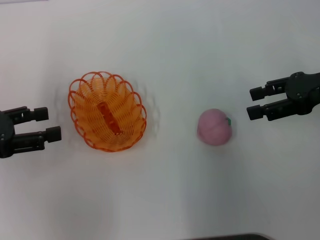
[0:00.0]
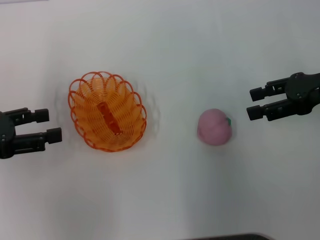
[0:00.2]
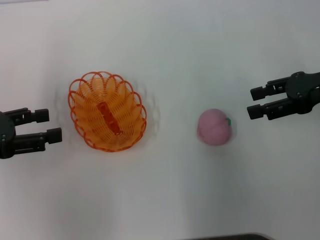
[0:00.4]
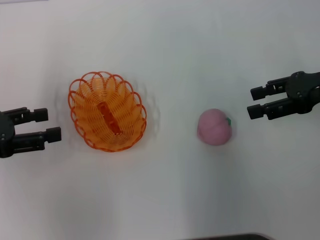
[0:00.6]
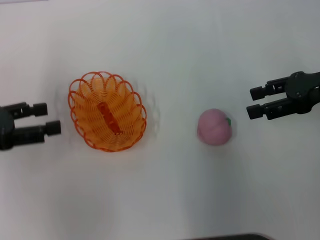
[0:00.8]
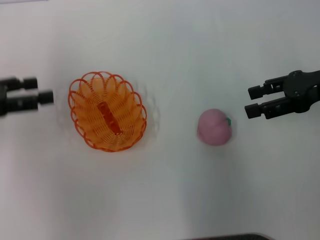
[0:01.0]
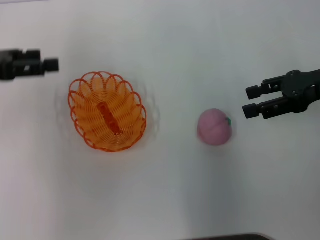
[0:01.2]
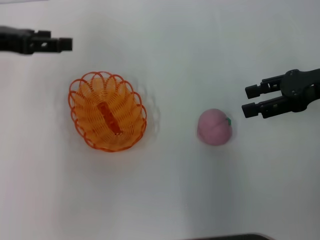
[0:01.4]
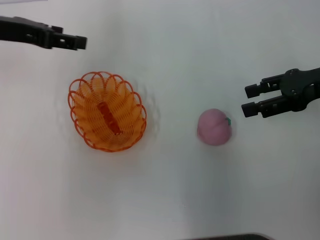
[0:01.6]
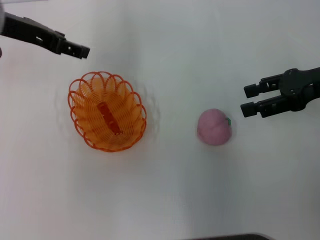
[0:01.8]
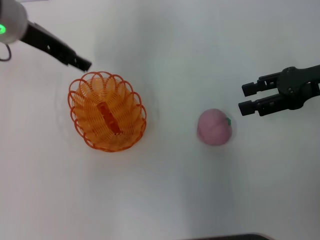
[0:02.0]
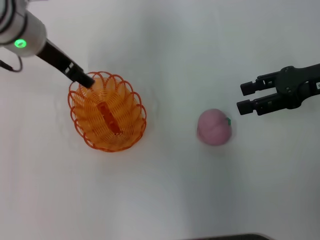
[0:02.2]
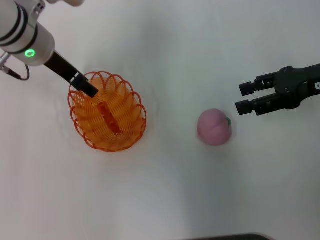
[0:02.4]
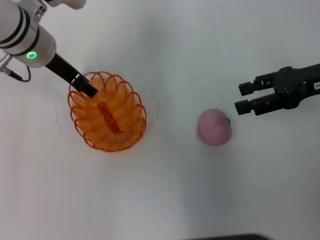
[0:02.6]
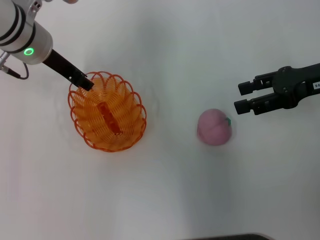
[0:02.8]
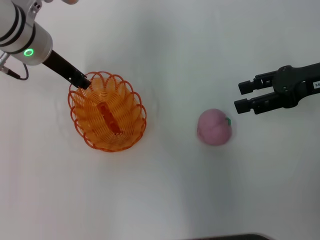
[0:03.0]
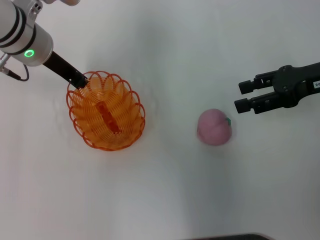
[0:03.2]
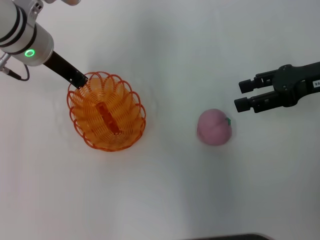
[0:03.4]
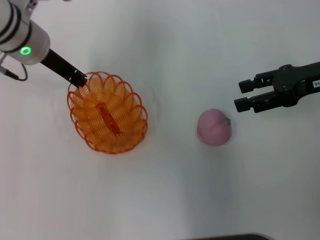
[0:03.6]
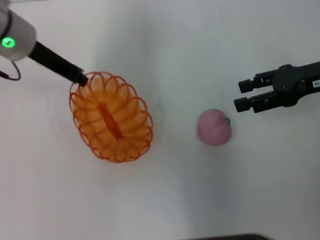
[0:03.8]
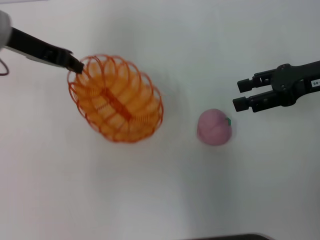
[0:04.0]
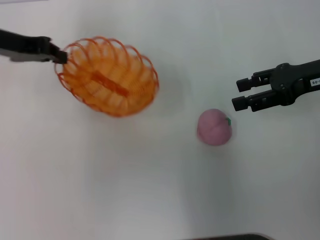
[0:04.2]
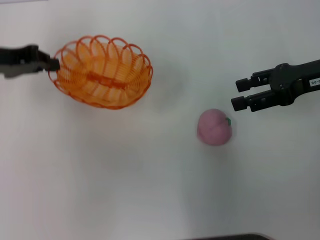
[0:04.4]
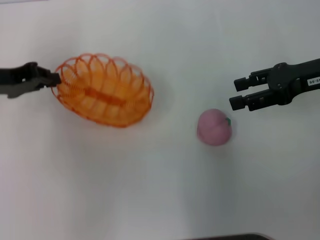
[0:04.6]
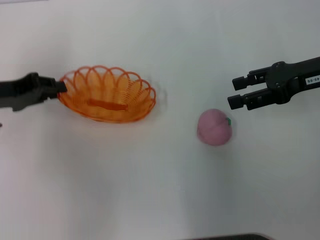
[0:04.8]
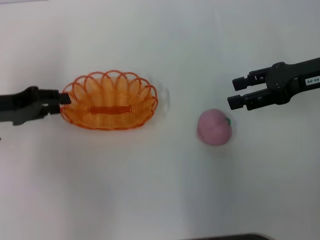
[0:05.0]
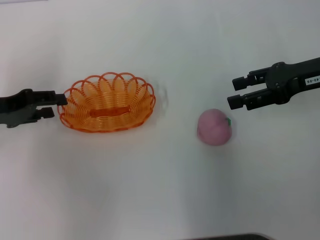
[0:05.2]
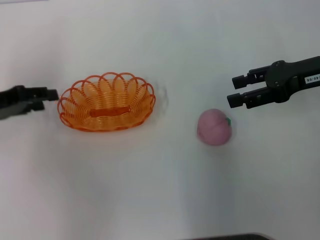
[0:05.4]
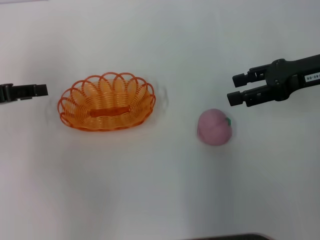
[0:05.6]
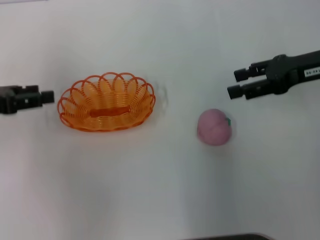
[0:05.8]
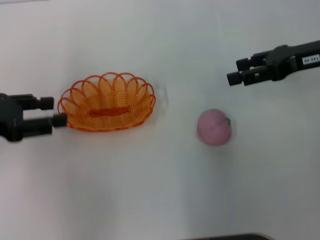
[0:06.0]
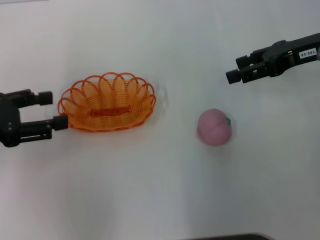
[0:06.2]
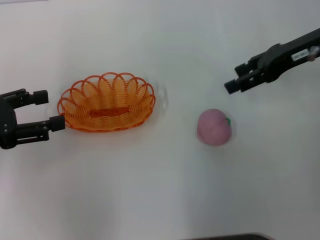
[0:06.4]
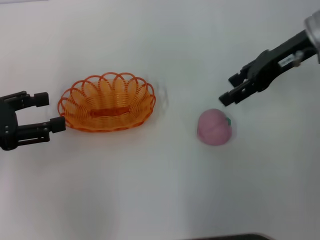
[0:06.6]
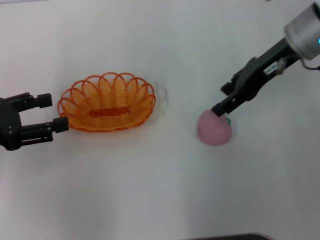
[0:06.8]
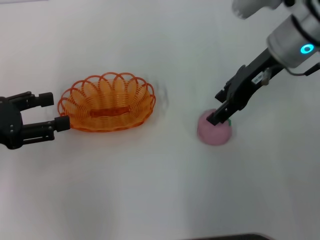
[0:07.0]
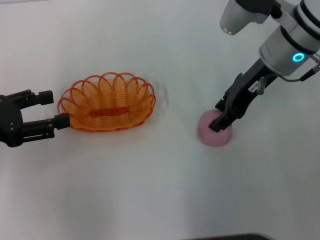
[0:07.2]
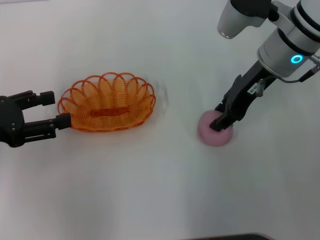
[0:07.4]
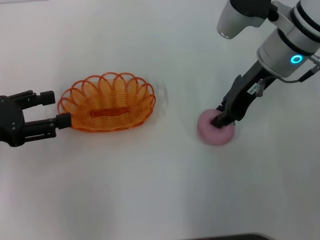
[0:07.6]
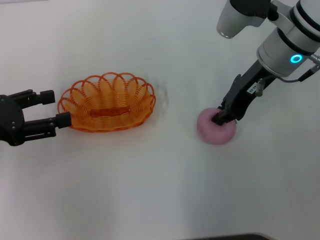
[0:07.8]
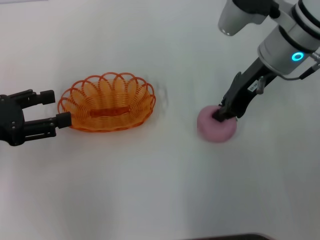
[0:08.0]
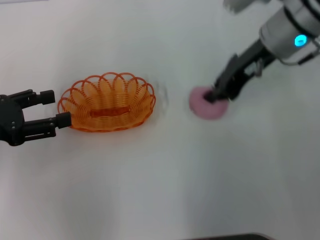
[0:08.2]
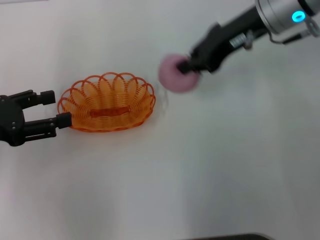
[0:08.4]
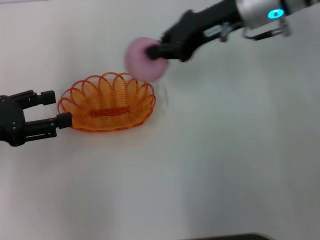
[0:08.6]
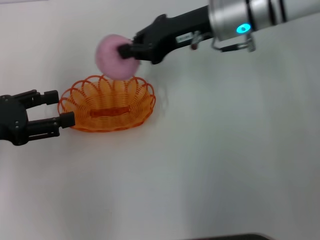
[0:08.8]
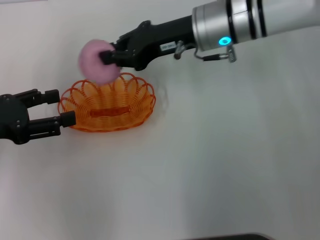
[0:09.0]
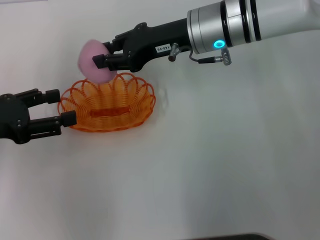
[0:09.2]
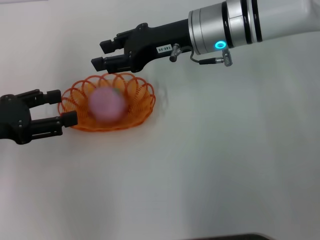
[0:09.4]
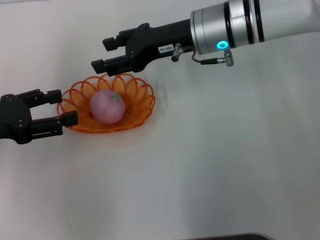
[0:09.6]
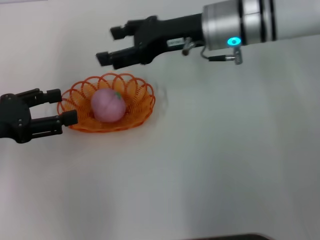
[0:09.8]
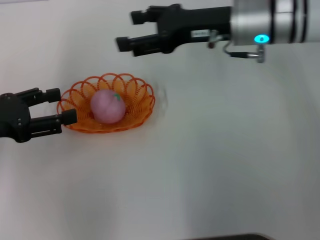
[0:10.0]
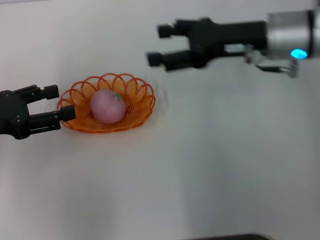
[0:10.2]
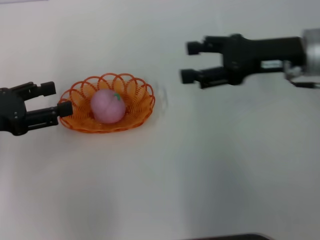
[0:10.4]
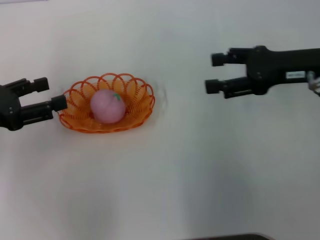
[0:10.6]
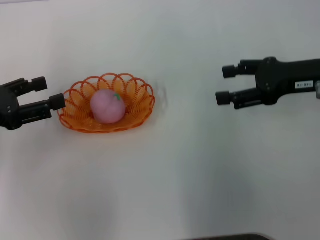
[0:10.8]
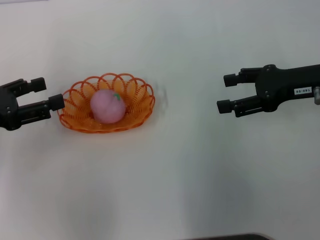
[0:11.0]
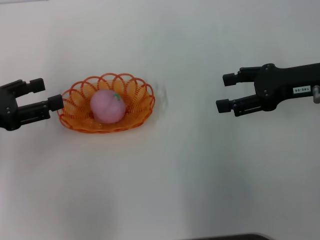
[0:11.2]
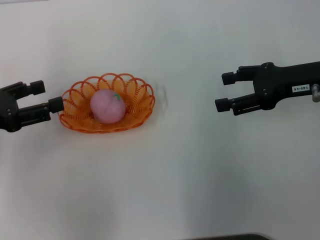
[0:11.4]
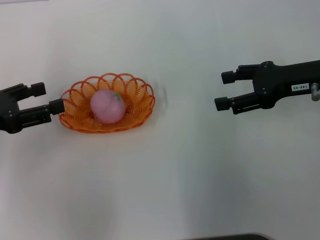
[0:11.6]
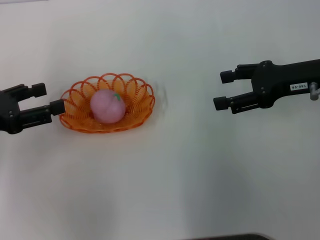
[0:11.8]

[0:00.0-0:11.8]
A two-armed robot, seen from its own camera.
Step, 0:00.0 to 0:04.2: Pick up the basket with the left gripper.
Step, 0:04.4 to 0:06.2: Place the basket in the center of view with the left gripper.
Step, 0:06.4 to 0:08.2: Pick up the peach with the right gripper.
Step, 0:08.4 to 0:10.4: Place the peach into the basket with the right gripper.
0:00.0 to 0:01.4: The left gripper shifts about 15 cm forward and upward.
0:01.4 to 0:03.0: The left gripper shifts about 10 cm to the right, and closes.
0:03.0 to 0:04.4: The left gripper goes about 10 cm to the left, and closes its fingers.
0:04.4 to 0:06.0: The left gripper is displaced backward by about 10 cm, and opens its fingers.
0:06.0 to 0:07.4: The right gripper heads to the left, covering about 10 cm.
0:07.4 to 0:08.8: The right gripper changes place by roughly 5 cm, and closes up.
0:08.8 to 0:10.4: The right gripper travels to the right and backward by some 15 cm, and opens up.
0:10.4 to 0:11.8: There are only small adjustments of the grippers.

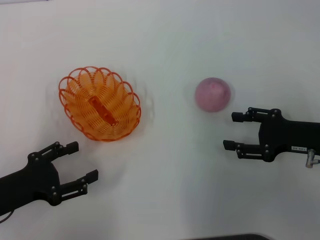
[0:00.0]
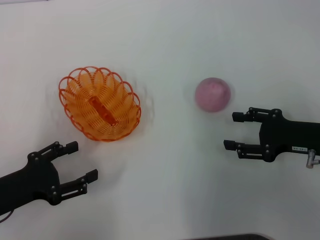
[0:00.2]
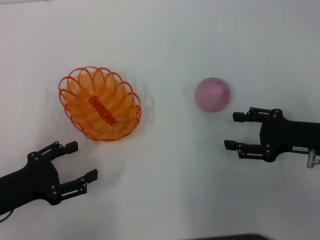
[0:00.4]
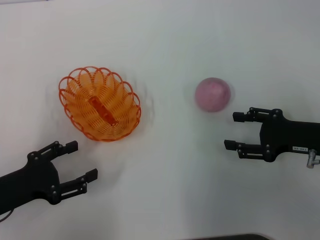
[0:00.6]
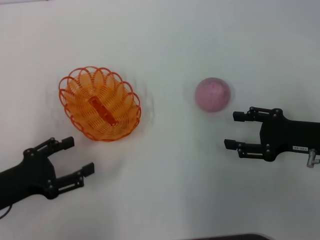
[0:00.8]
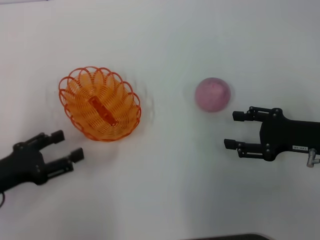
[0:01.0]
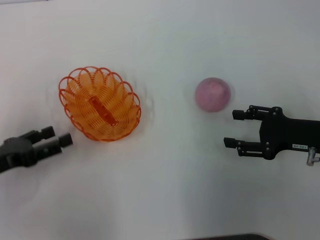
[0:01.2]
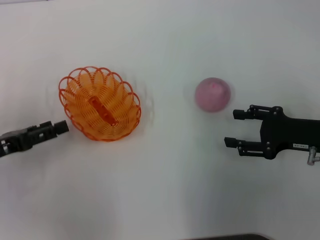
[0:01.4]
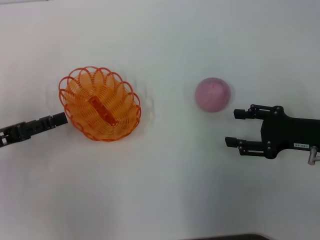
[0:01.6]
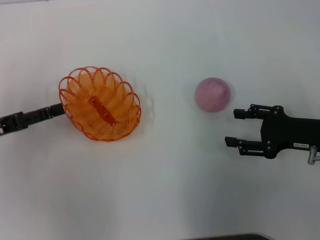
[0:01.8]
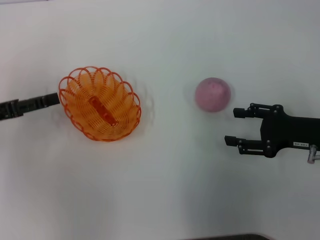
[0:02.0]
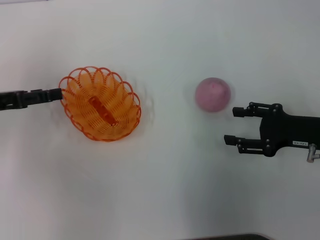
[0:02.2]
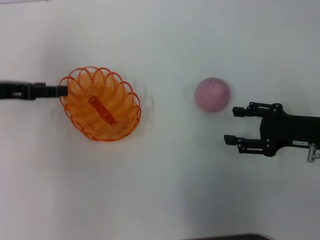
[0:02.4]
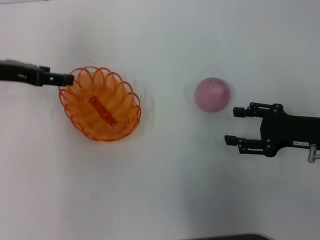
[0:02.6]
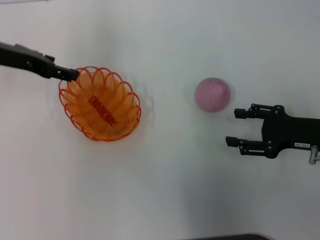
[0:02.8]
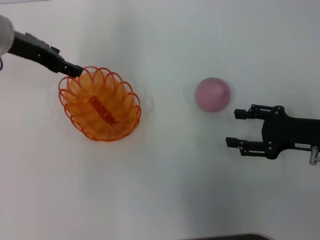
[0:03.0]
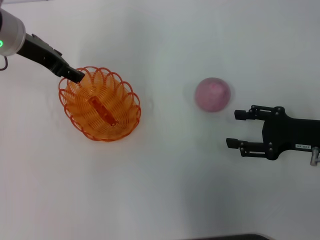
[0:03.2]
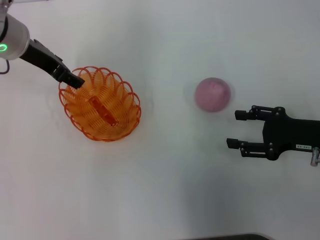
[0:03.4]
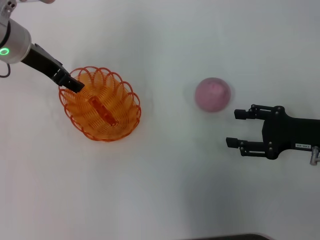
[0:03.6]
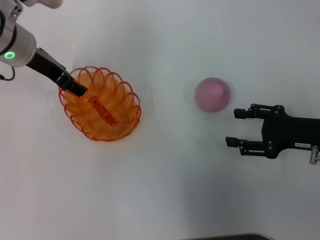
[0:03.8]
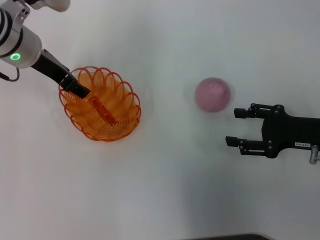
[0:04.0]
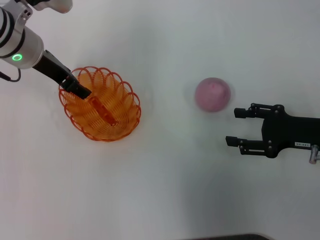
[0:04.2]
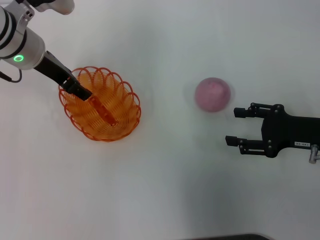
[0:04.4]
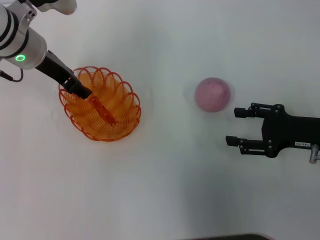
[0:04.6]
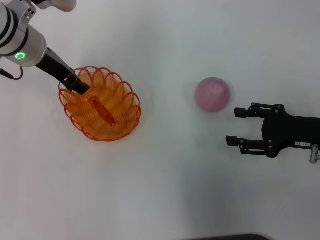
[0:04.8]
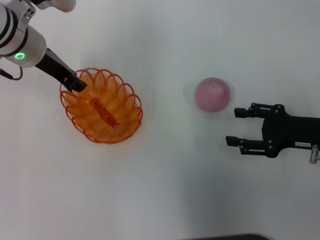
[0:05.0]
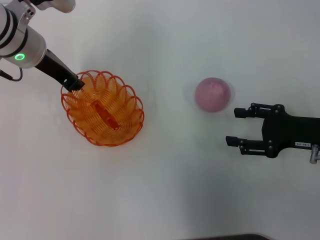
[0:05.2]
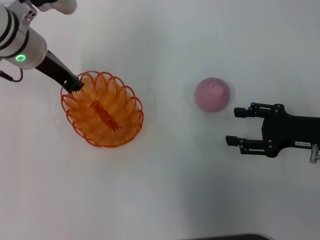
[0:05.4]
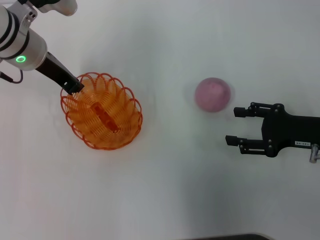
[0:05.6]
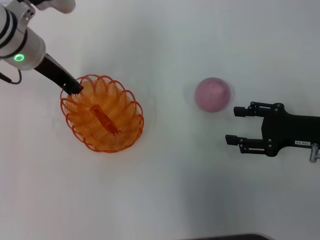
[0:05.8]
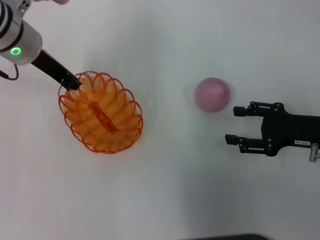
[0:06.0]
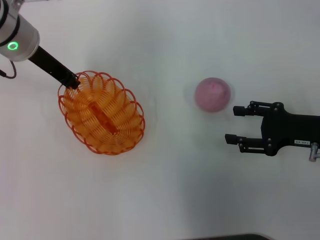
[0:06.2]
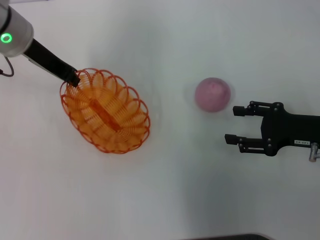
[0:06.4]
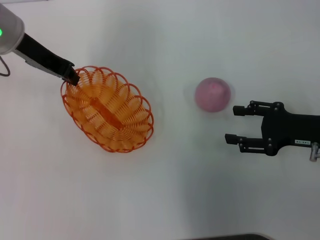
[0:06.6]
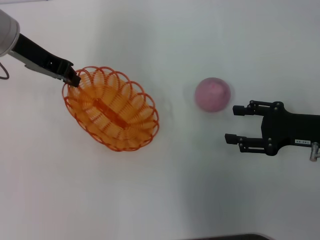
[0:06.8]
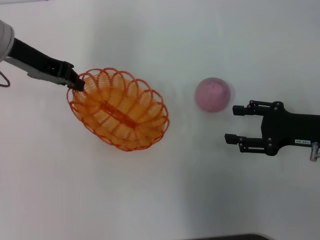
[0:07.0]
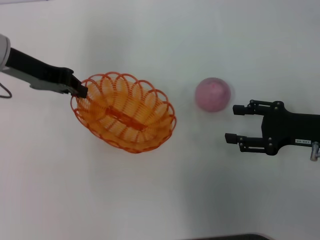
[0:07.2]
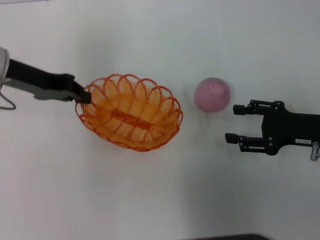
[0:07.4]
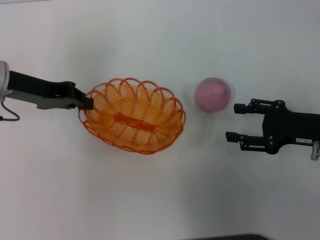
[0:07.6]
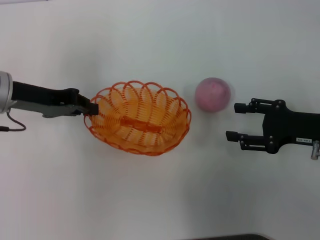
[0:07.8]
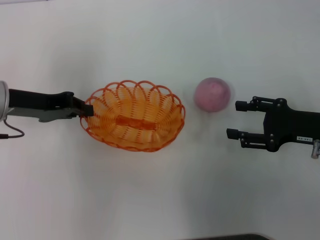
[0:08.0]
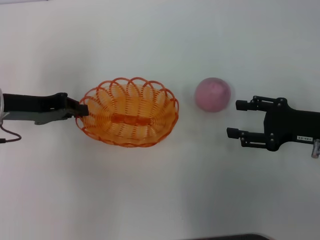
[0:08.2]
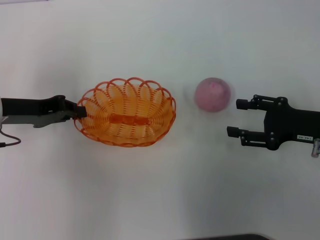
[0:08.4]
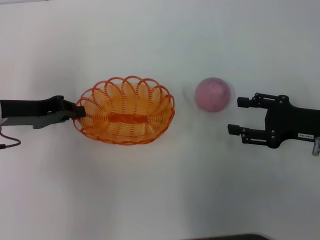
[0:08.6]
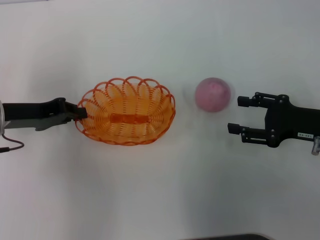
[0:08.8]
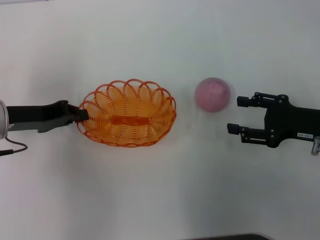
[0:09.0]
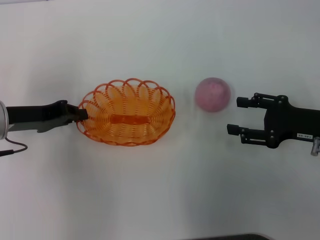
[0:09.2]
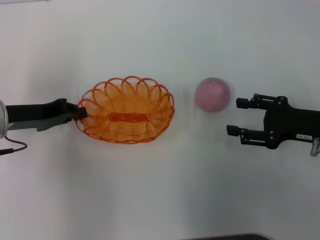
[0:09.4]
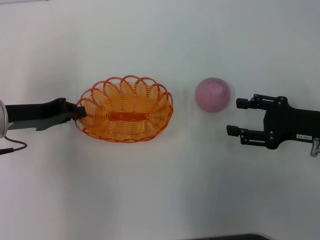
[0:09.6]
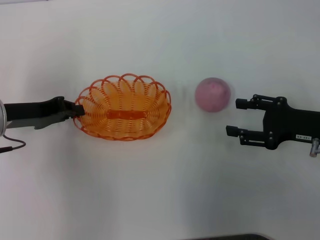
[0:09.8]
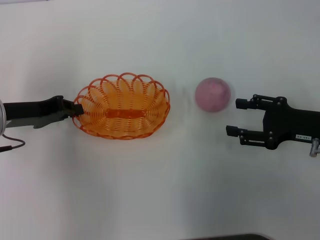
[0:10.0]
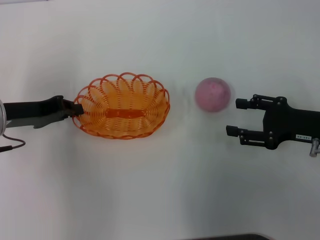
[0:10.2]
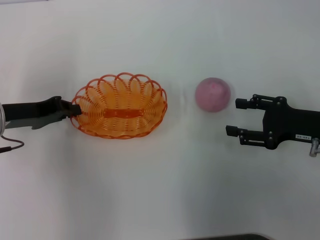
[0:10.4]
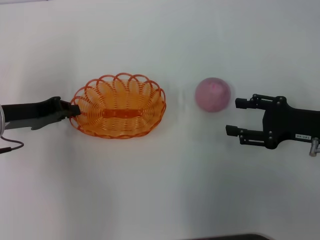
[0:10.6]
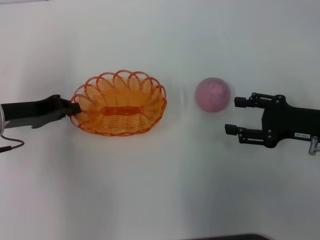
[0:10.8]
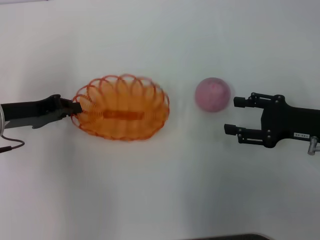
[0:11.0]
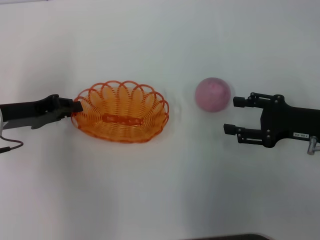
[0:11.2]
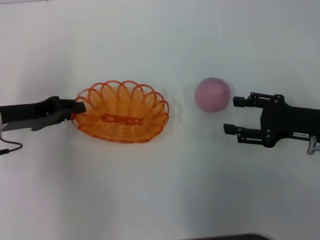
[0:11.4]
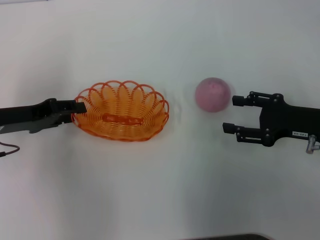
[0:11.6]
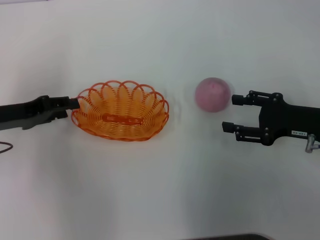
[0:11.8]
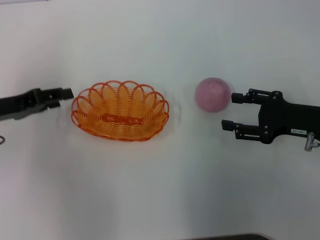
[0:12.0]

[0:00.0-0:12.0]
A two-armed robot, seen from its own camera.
Step, 0:00.0 to 0:06.0: Pick up the basket with the left gripper.
0:00.0 to 0:01.6: The left gripper travels forward by approximately 5 cm.
0:01.6 to 0:03.0: The left gripper heads forward, upward and to the right, covering some 20 cm.
0:03.0 to 0:04.4: The grippers make only small movements.
0:04.4 to 0:06.0: The left gripper closes up.
0:06.0 to 0:07.6: The left gripper heads to the left, covering approximately 5 cm.
0:07.6 to 0:09.0: The left gripper is displaced downward by approximately 5 cm.
0:09.0 to 0:10.4: Both grippers stay about where they are.
0:10.4 to 0:12.0: The left gripper opens its fingers.
